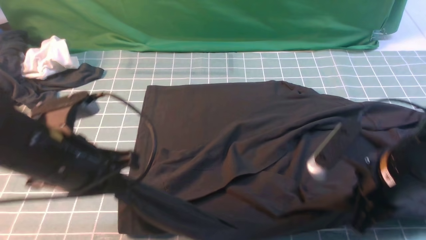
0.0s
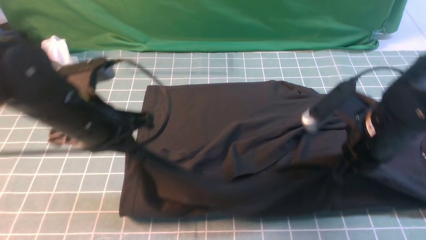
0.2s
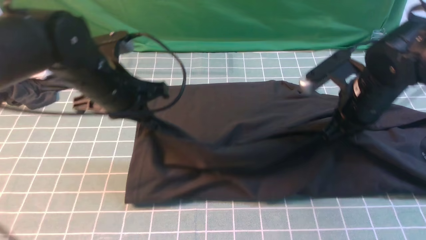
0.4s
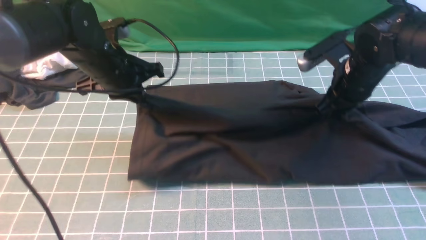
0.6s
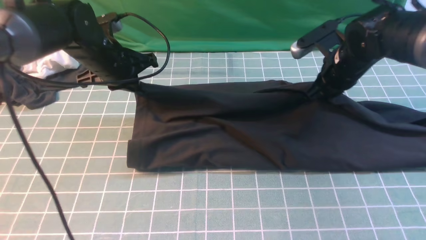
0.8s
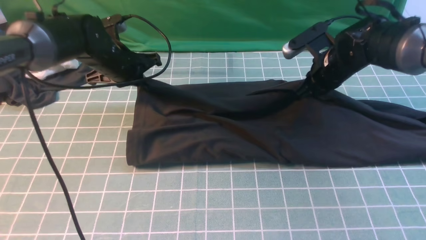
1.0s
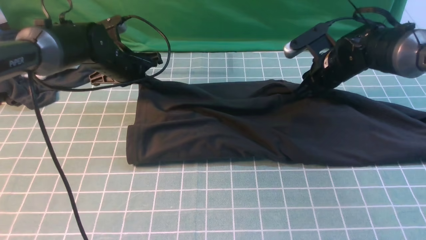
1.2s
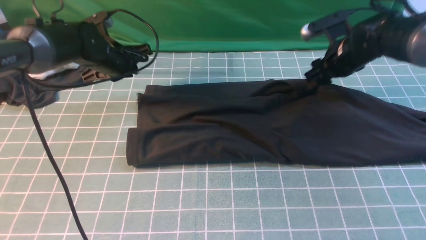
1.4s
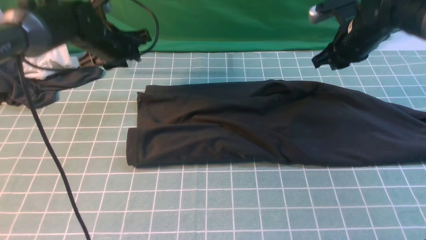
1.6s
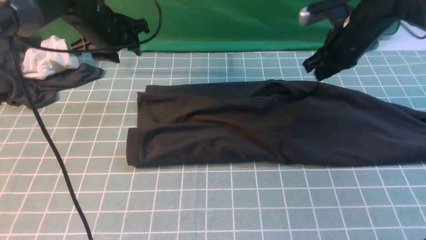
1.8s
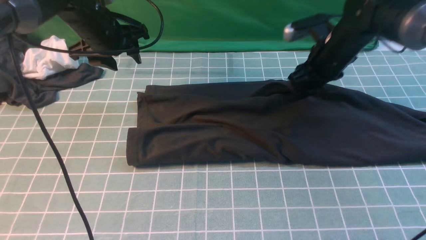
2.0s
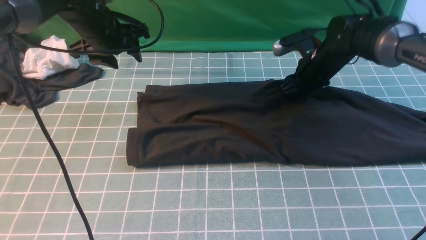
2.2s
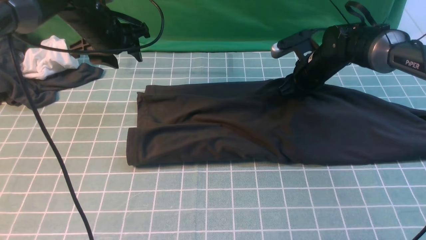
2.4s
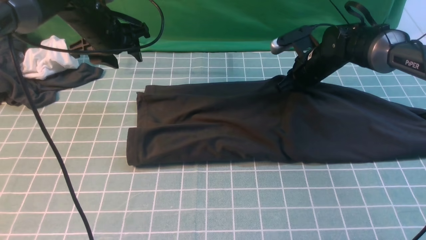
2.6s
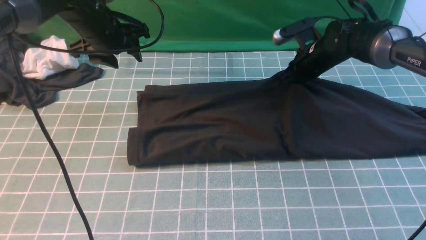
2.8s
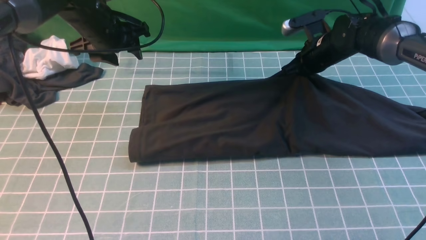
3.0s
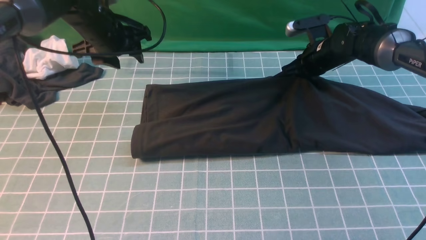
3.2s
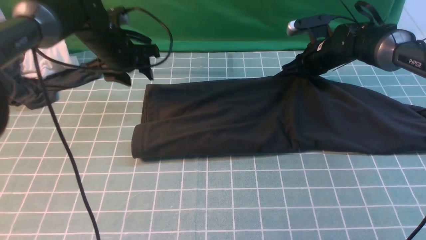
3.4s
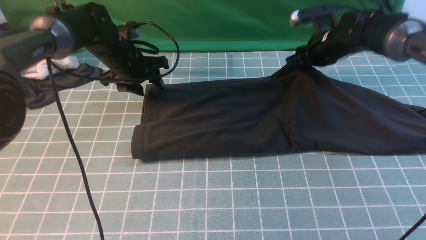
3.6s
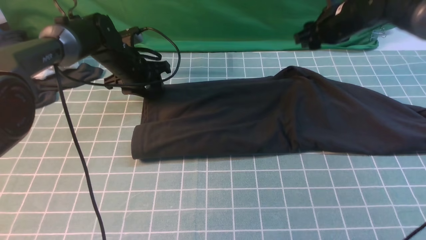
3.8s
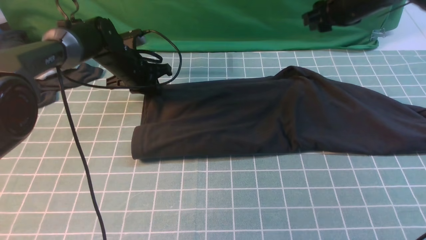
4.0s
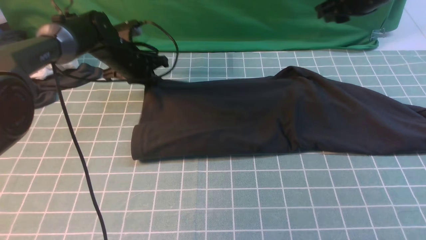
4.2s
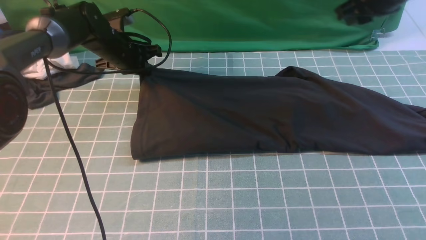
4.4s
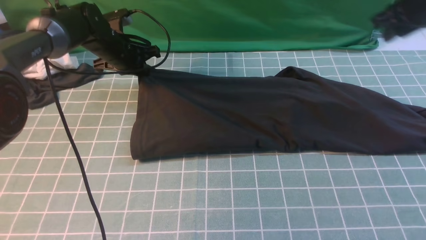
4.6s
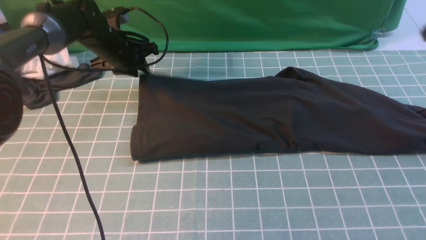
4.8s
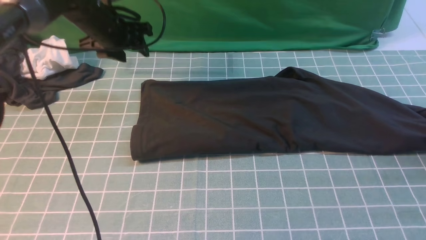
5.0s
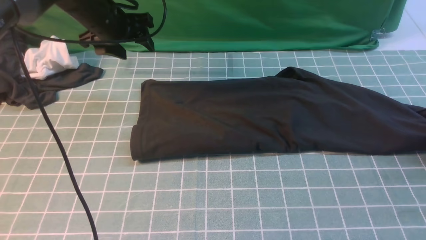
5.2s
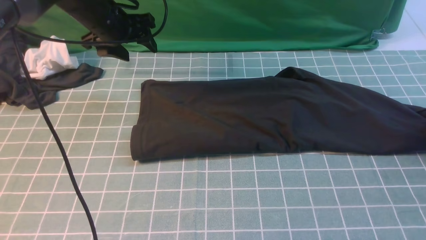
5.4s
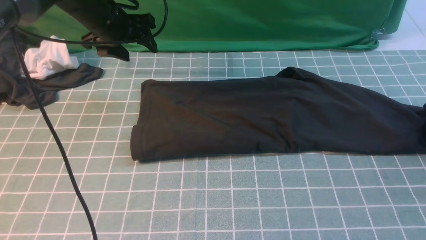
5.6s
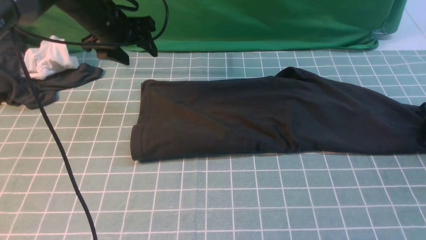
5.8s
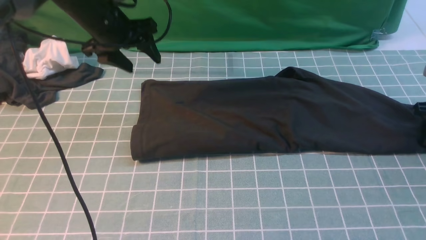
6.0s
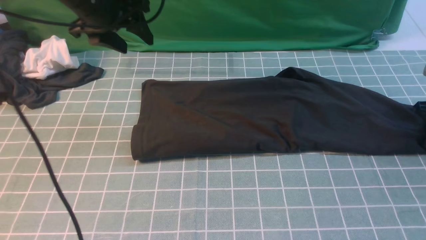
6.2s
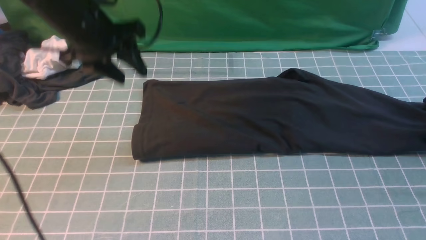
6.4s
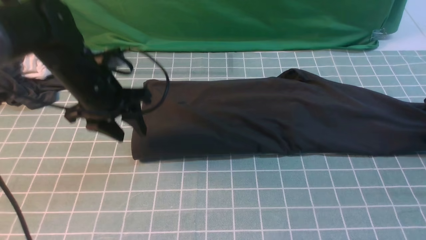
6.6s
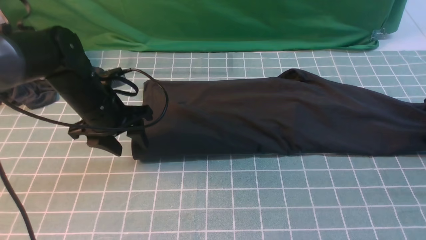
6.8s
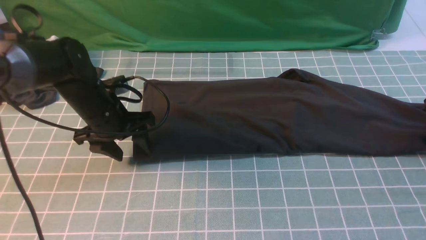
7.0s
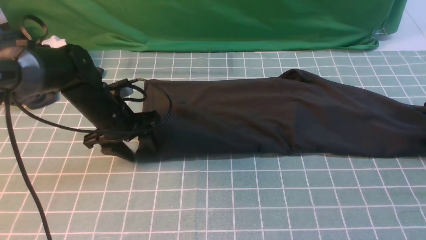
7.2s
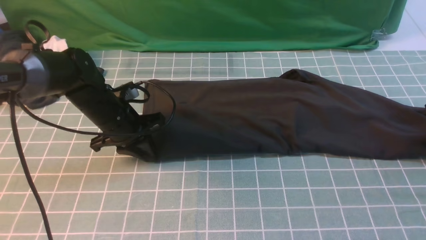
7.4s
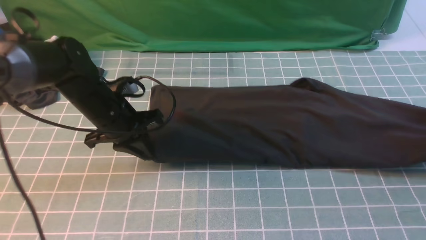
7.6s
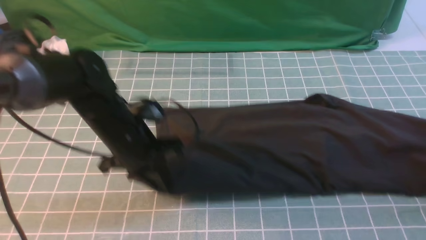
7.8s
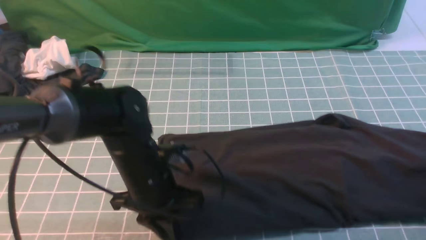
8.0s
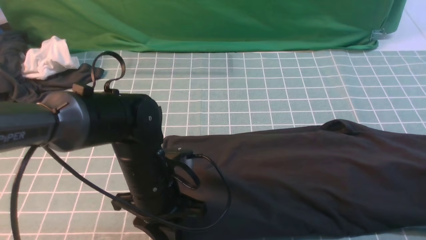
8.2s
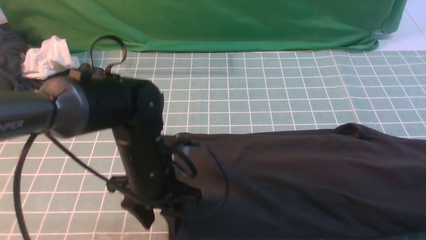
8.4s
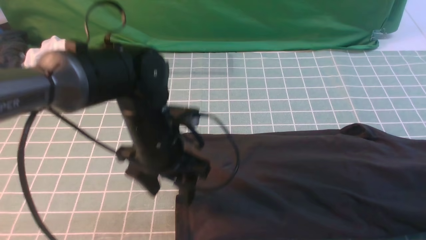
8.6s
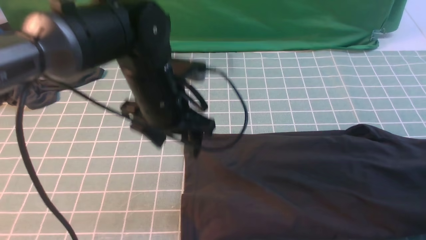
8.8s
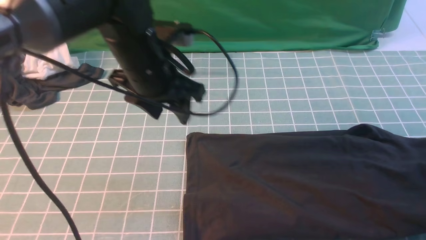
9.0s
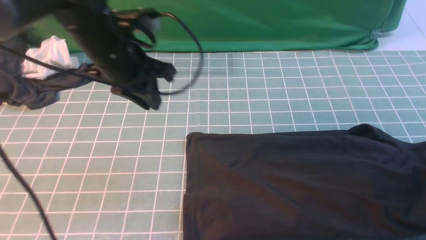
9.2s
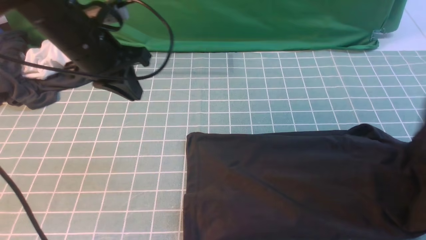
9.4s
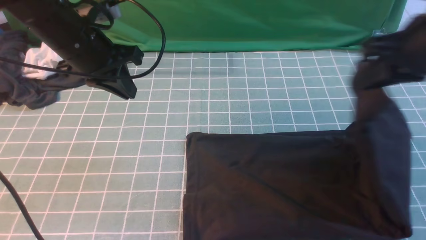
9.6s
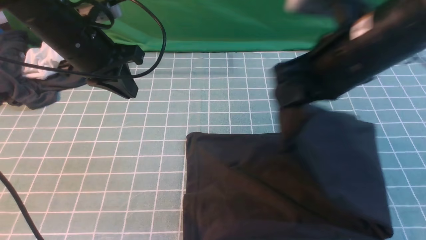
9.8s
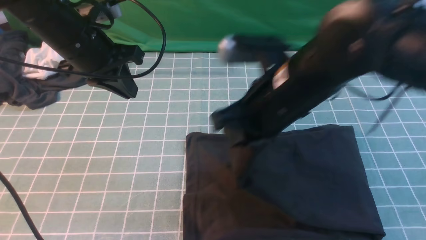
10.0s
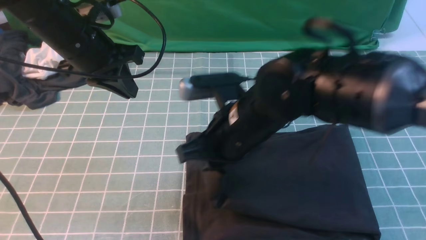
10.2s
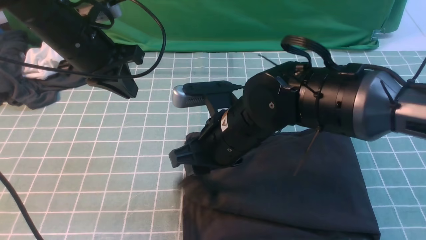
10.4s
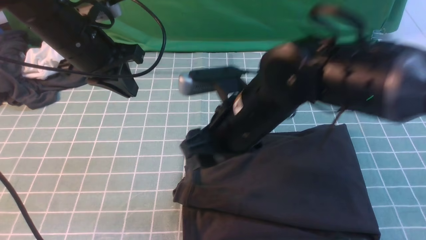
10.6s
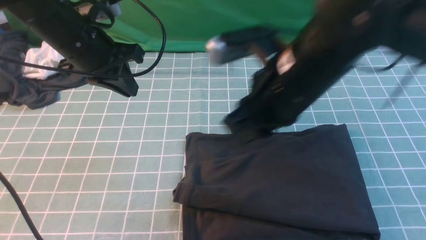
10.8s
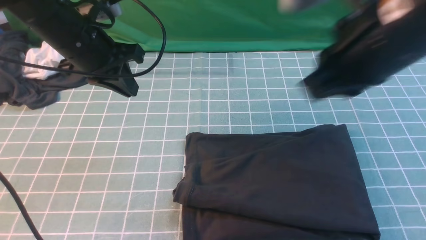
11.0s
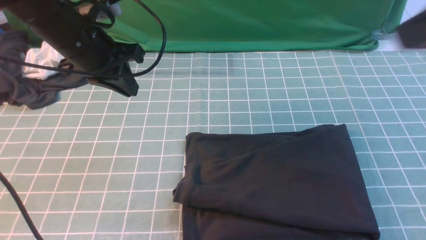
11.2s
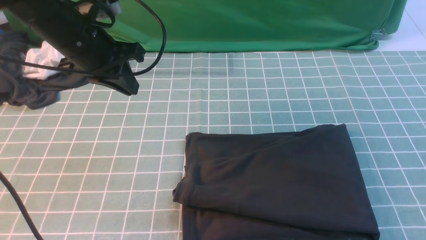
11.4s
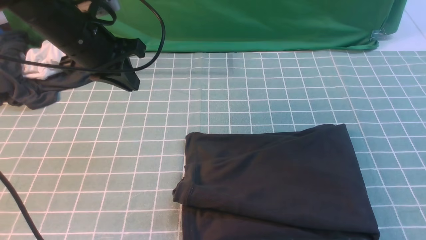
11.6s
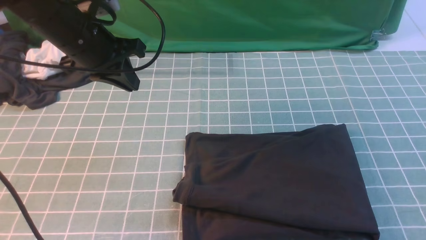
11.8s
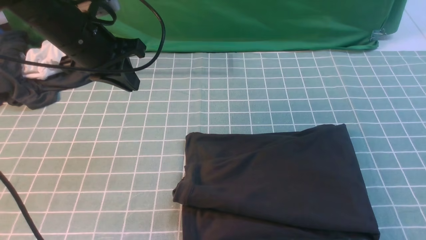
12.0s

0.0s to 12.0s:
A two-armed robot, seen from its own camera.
Step, 0.0s to 1.6s: use both arms to drag the lower edge of the fabric forward and fold it over the upper edge.
Step, 1.8s to 8.2s: use the right arm to clamp the right edge of the fabric.
Step, 8.4s to 10.8s: use the right arm to drag the right edge of the fabric to the left and folds it over the left edge.
0.0s to 1.6s: Both grippers move forward, about 25 cm. The left gripper opens its fingers. Meanwhile the right gripper opens its fingers.
1.6s to 3.0s: The right gripper goes some 10 cm downward and forward.
3.0s to 4.4s: The right gripper travels upward and to the right by approximately 15 cm, and opens up. The left gripper moves downward, about 10 cm, and closes up.
4.4s to 6.0s: The right gripper shifts about 25 cm downward and to the right, and opens and closes again, while the left gripper heads upward and backward, covering some 10 cm, and opens its fingers.
6.0s to 7.6s: The right gripper goes about 10 cm upward and backward. Meanwhile the left gripper is displaced downward and backward by about 15 cm, and closes its fingers.
7.6s to 9.0s: The left gripper shifts roughly 15 cm upward and to the right, and opens up, while the right gripper is displaced upward and backward by some 10 cm.
9.0s to 10.4s: The left gripper heads to the left, covering approximately 10 cm, and closes its fingers, while the right gripper shifts some 40 cm to the left, and opens its fingers.
10.4s to 12.0s: The right gripper goes some 35 cm to the right and backward, and closes.

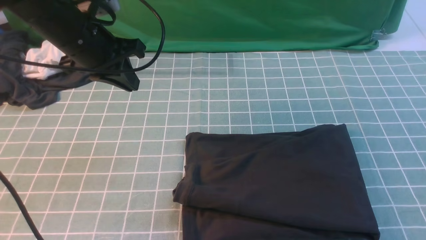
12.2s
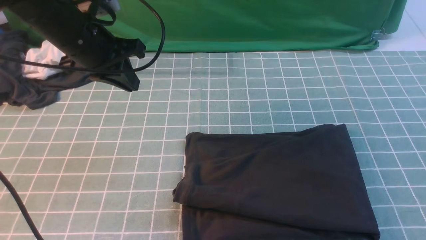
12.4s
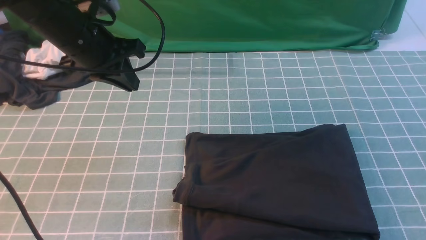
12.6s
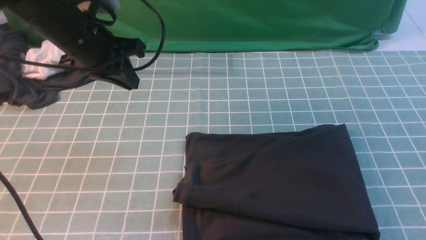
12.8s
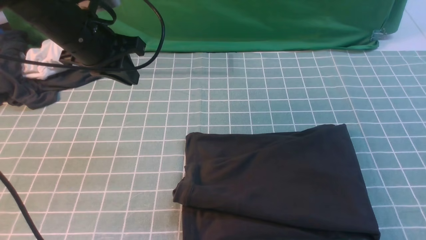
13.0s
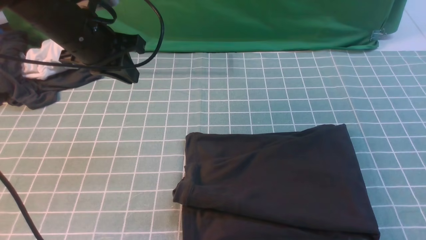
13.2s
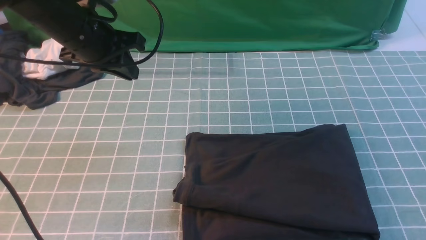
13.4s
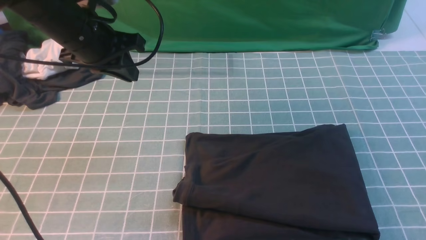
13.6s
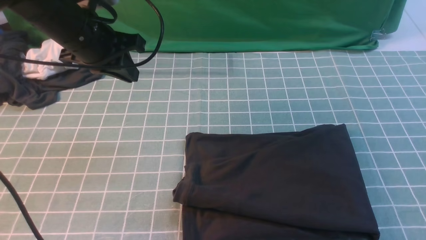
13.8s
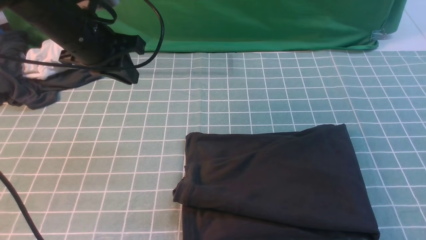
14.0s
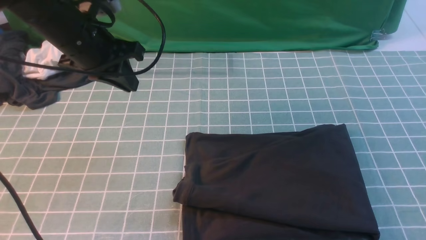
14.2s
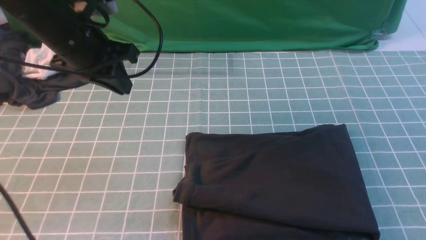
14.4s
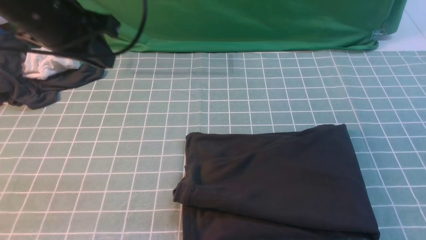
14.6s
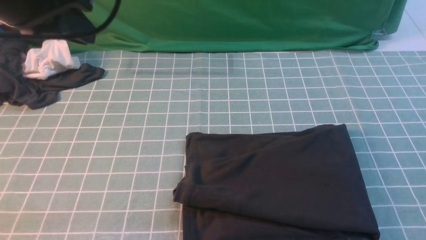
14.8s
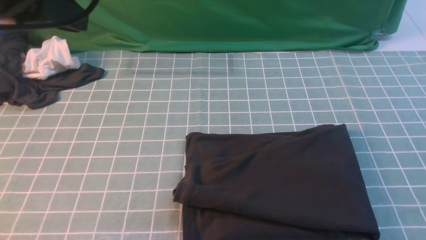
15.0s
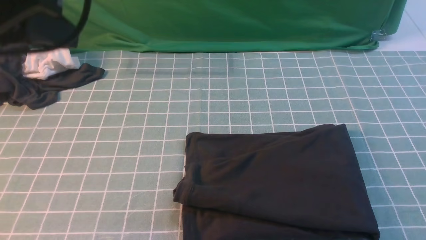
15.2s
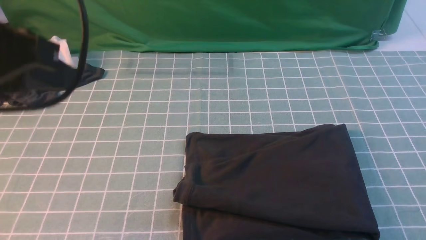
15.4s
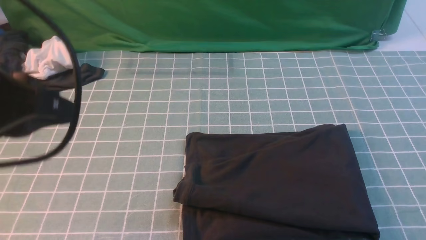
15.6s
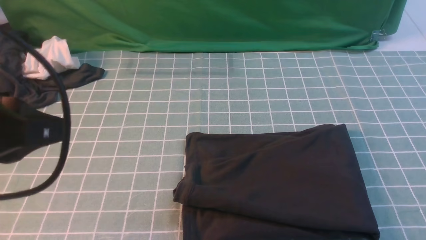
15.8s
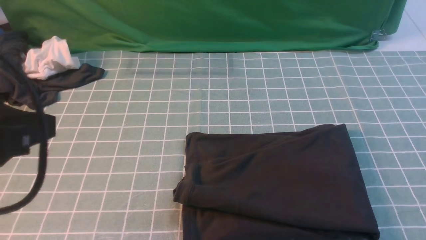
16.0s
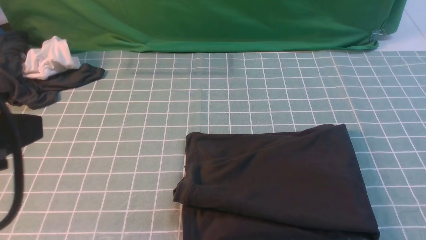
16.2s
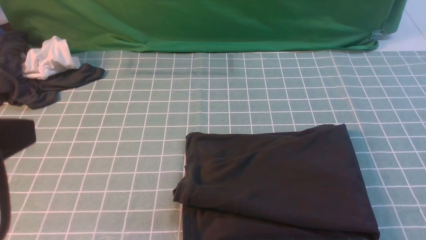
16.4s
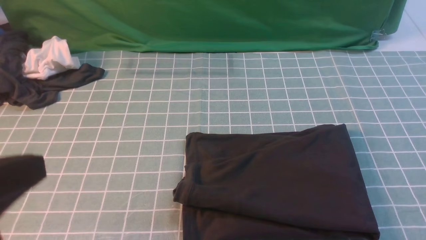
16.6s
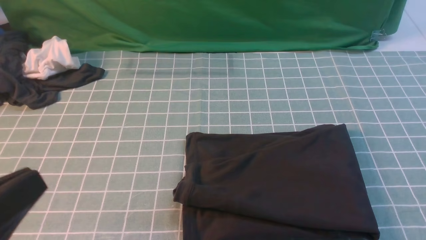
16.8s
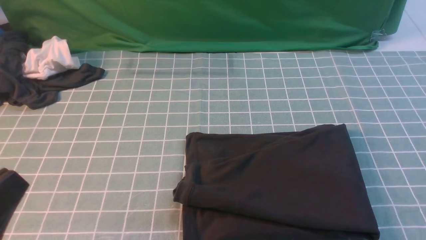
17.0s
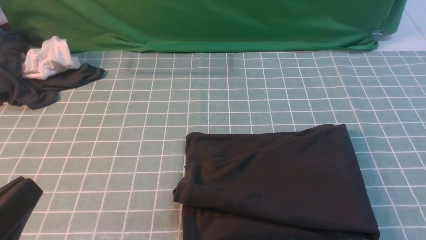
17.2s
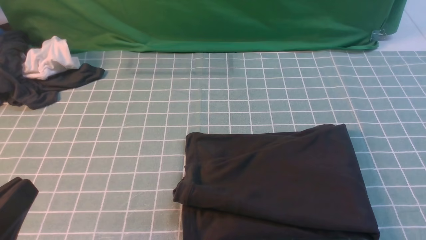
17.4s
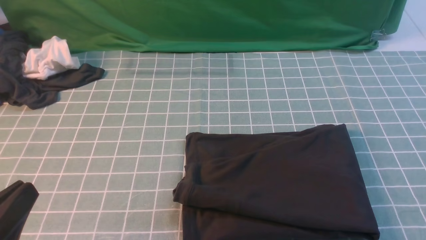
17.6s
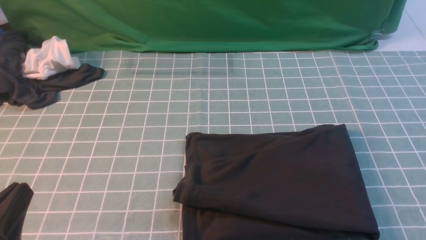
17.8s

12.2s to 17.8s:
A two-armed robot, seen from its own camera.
13.6s to 15.0s: The left gripper heads backward and upward, covering some 20 cm.
15.0s to 16.4s: The left gripper goes approximately 15 cm backward.
16.4s to 17.8s: The left gripper heads downward, covering some 15 cm.
